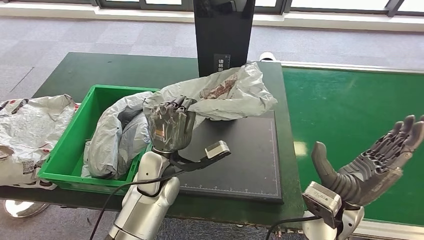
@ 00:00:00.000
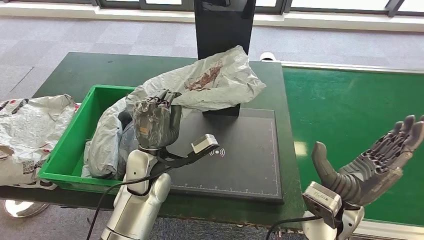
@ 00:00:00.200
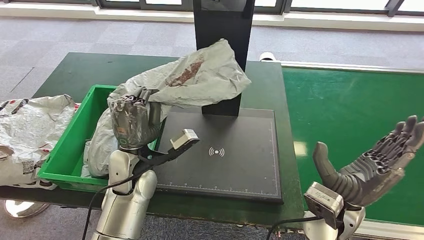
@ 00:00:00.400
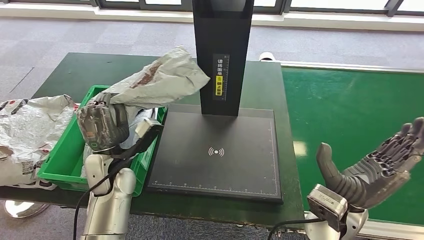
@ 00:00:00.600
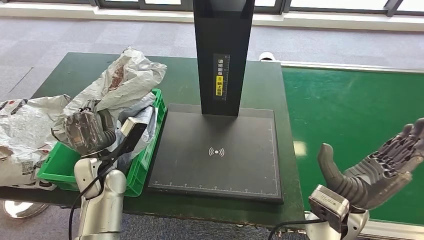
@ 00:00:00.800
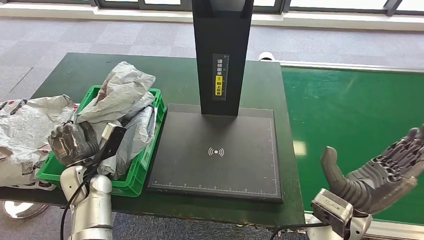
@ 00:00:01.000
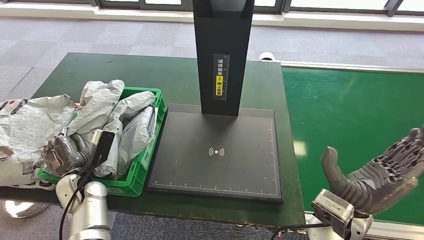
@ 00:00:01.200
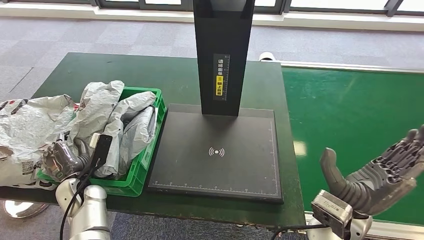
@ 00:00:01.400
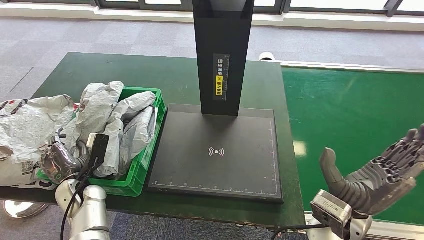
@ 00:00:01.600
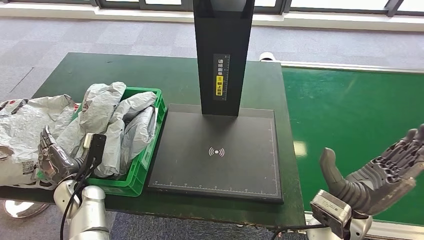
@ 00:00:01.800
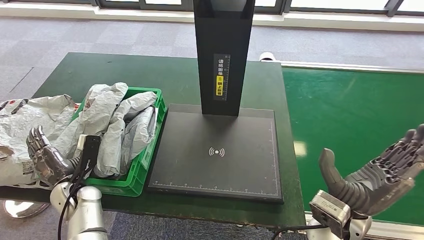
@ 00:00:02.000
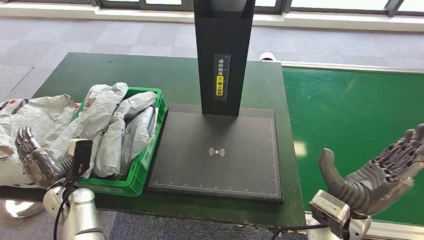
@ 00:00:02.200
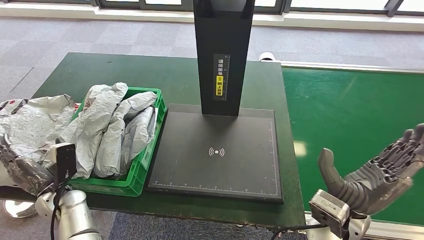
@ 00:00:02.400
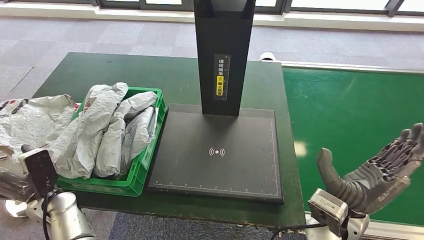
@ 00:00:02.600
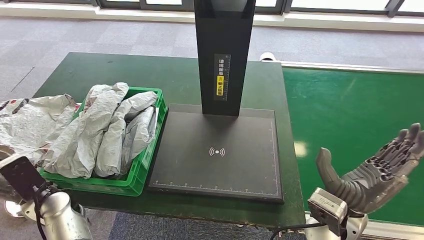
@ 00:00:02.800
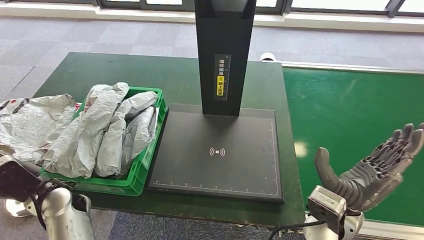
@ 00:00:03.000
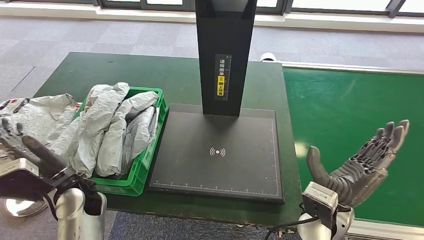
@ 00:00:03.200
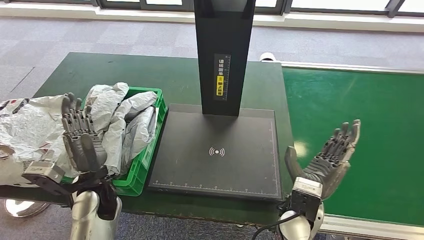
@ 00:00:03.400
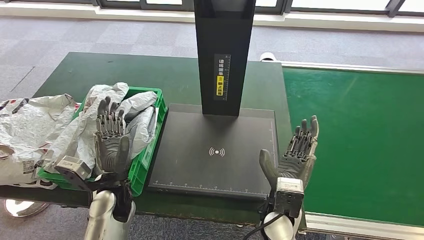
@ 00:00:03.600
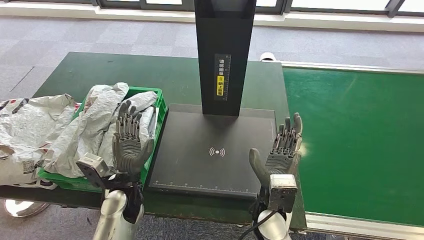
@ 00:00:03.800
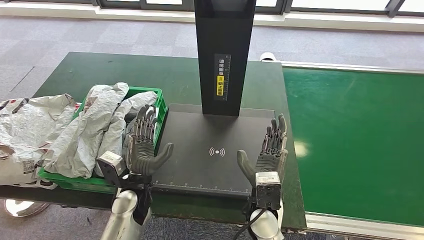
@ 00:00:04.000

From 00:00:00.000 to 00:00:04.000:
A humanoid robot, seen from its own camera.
Step, from 00:00:00.400 to 00:00:04.000: Place the parcel into the delivery box.
From 00:00:01.400 to 00:00:02.600: The left hand shifts by about 5 cm.
From 00:00:02.600 to 00:00:04.000: The left hand heads to the right, covering some 20 cm, while the right hand shifts about 15 cm to the left and downward.
